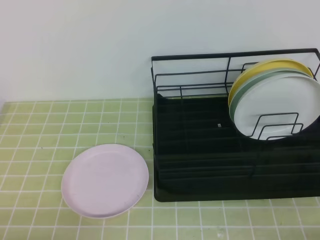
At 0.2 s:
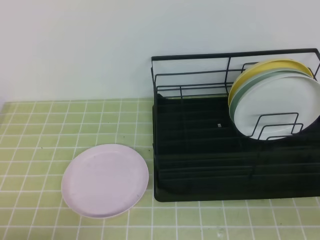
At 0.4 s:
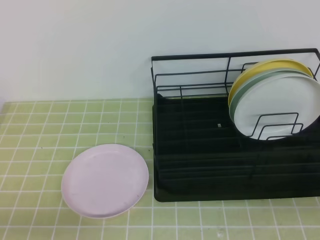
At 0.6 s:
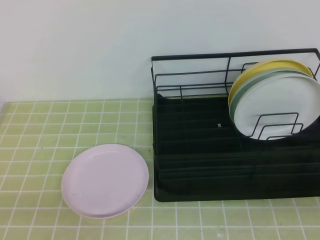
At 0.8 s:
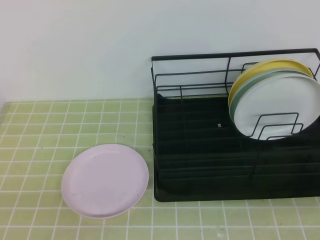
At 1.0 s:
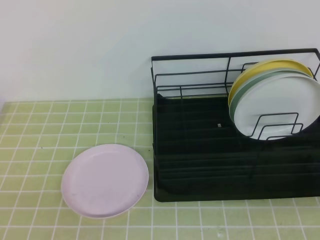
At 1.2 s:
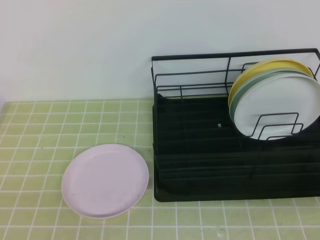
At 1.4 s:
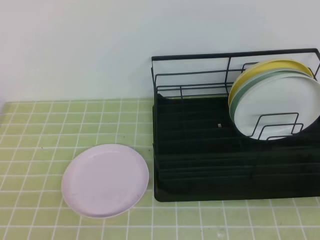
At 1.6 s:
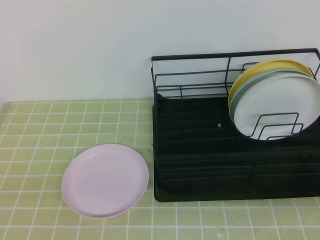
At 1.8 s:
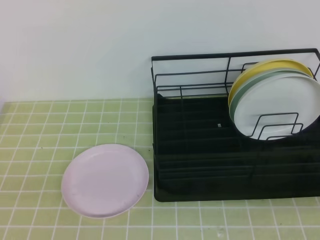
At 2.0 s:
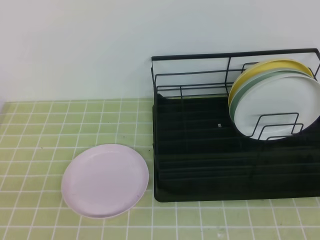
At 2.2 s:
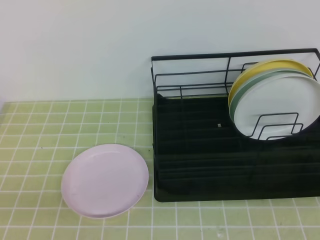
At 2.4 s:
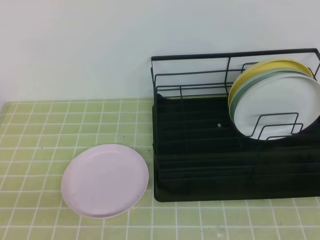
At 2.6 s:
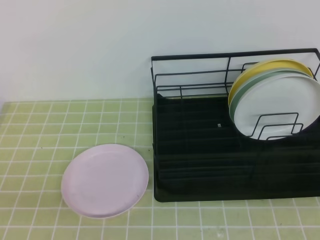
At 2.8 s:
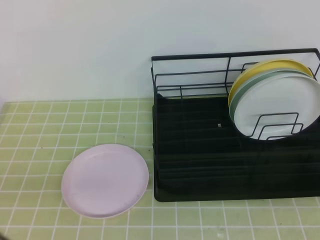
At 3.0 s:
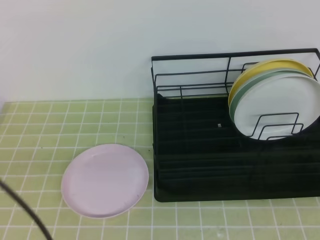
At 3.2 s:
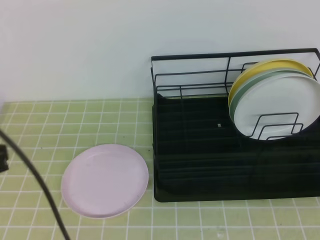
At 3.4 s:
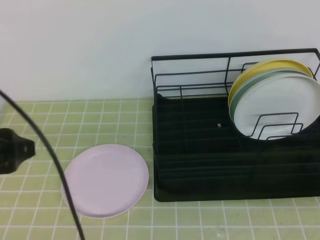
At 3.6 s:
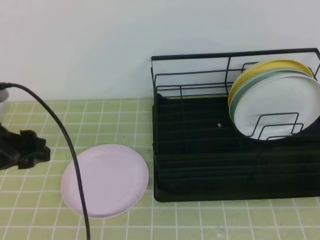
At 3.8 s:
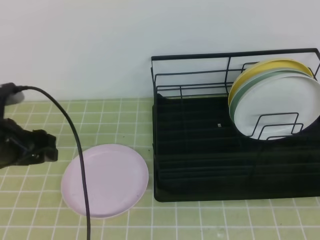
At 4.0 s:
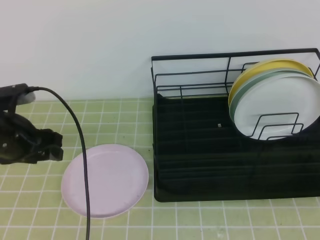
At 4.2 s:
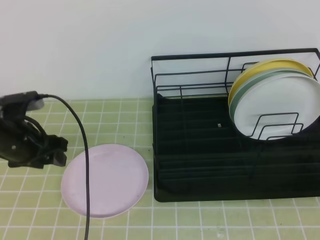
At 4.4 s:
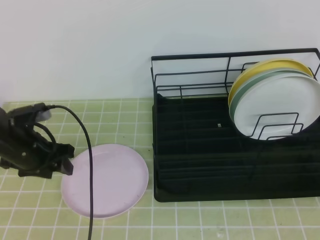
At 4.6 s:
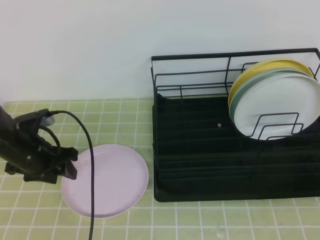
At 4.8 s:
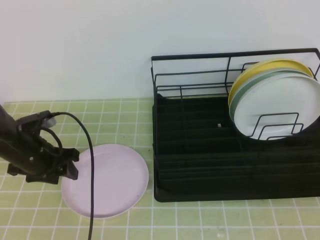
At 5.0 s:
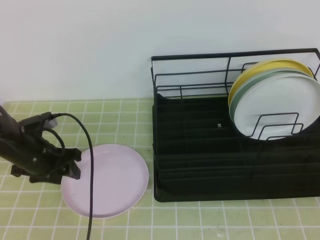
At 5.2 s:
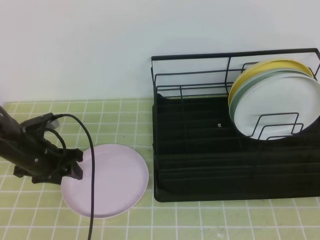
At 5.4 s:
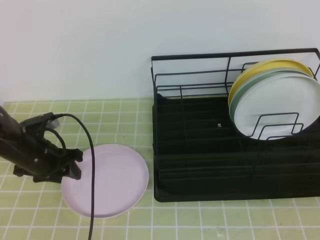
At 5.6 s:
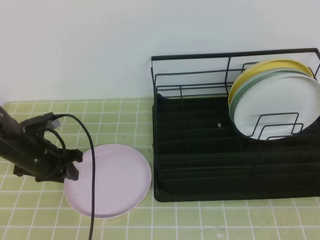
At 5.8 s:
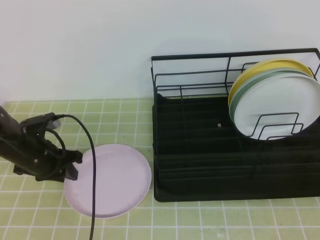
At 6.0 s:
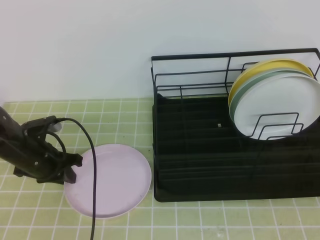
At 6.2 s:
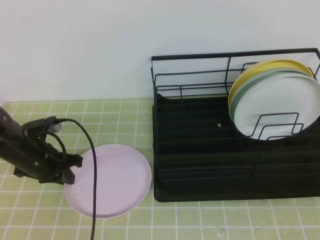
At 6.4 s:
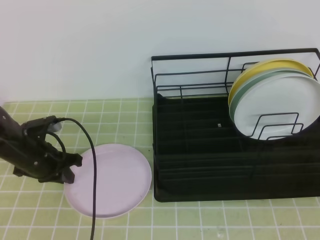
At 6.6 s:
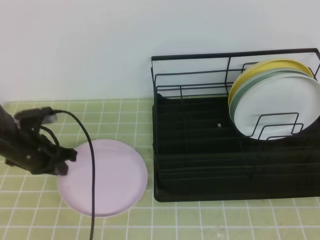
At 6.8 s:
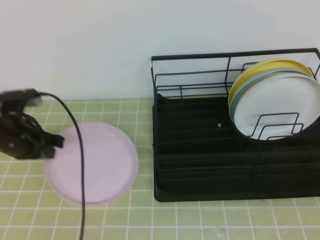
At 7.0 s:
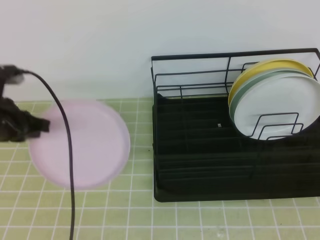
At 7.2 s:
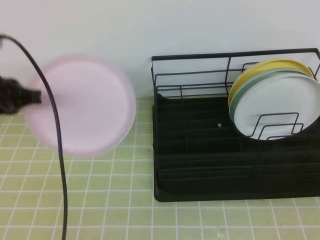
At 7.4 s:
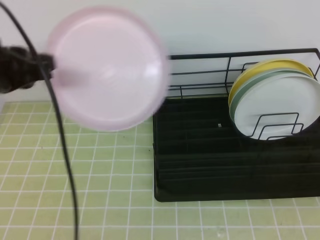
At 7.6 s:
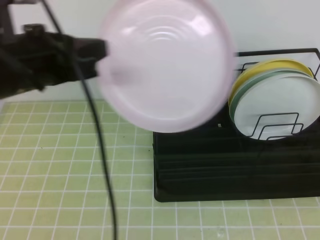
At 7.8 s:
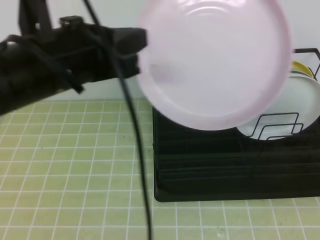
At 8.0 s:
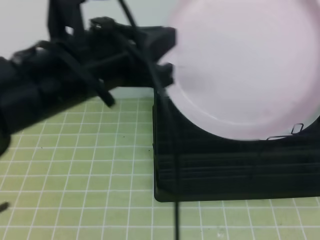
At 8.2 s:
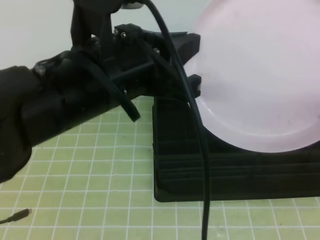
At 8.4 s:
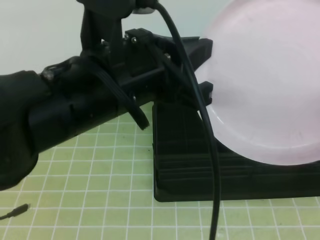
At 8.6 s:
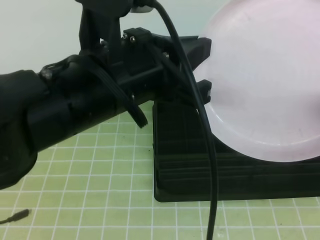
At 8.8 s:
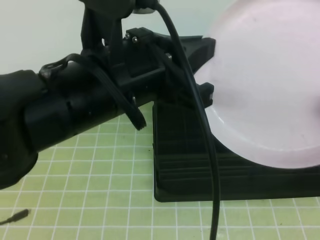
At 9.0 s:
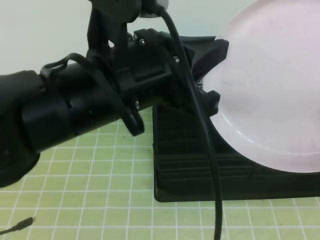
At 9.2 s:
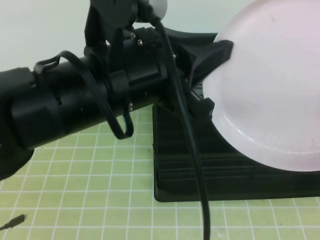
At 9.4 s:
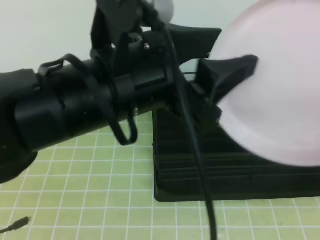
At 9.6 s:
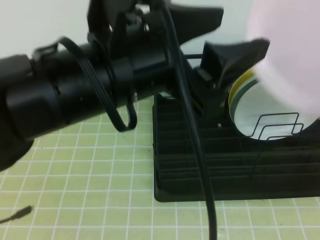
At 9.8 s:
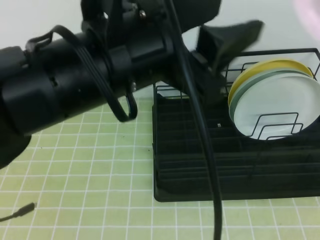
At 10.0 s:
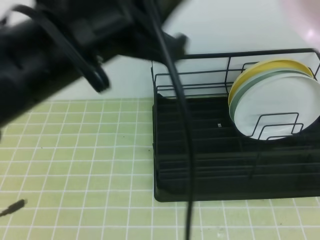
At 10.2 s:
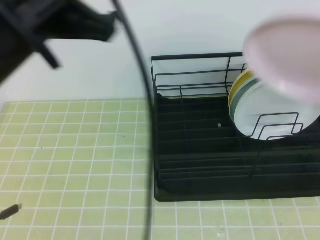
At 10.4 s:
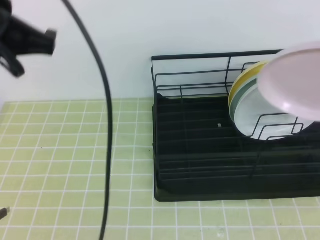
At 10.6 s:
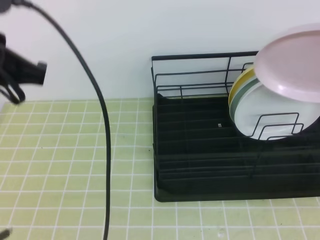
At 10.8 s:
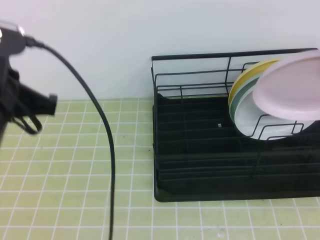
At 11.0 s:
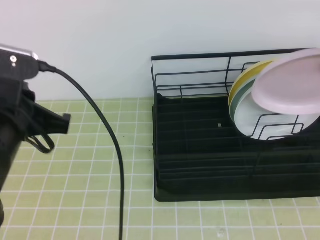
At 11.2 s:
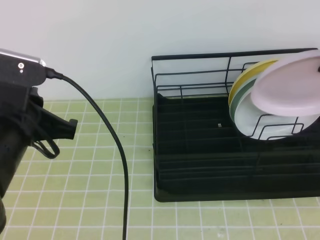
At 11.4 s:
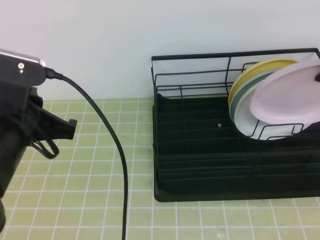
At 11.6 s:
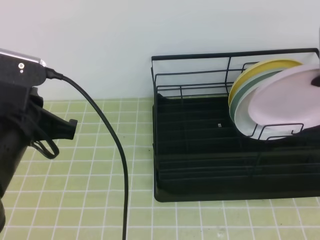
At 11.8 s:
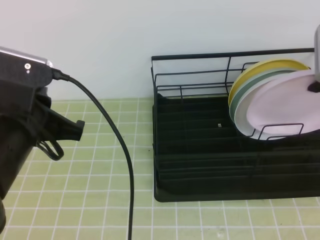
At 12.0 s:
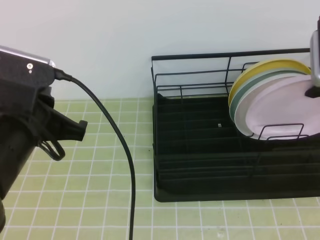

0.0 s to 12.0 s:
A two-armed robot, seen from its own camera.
1.6 to 3.0 s: The left gripper heads forward, covering some 10 cm.
3.0 to 4.4 s: The left gripper shifts about 25 cm forward and downward, and opens its fingers.
4.4 to 6.0 s: The left gripper heads downward, covering some 5 cm, and closes its fingers.
6.0 to 7.6 s: The left gripper travels upward and backward by some 25 cm, while the right gripper is displaced upward by some 5 cm.
7.6 to 9.0 s: The left gripper travels to the right and backward by roughly 15 cm; the right gripper opens its fingers.
9.0 to 10.4 s: The right gripper shifts some 15 cm forward and upward; the left gripper moves to the left, roughly 10 cm, and opens and closes again.
10.4 to 12.0 s: The left gripper travels downward by approximately 10 cm. The right gripper travels forward and downward by approximately 15 cm.

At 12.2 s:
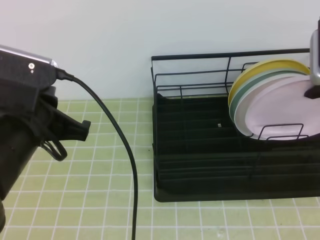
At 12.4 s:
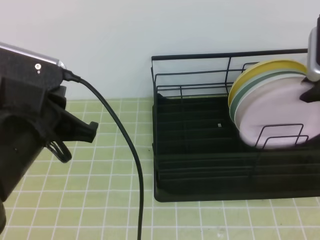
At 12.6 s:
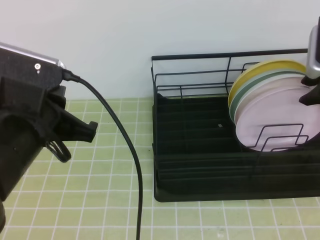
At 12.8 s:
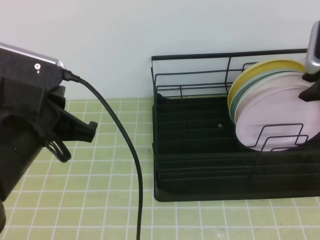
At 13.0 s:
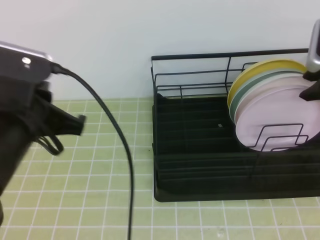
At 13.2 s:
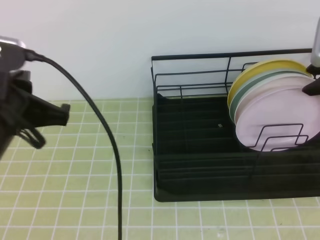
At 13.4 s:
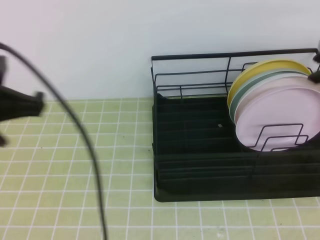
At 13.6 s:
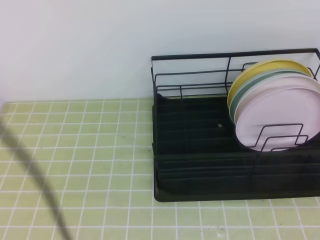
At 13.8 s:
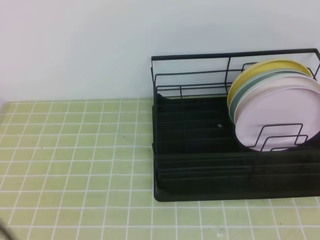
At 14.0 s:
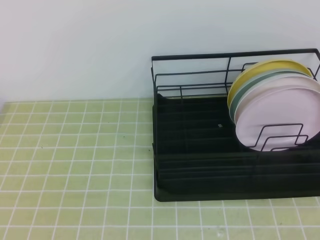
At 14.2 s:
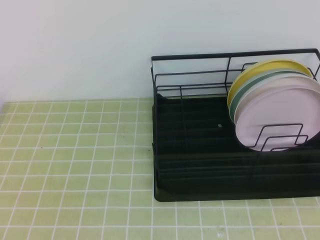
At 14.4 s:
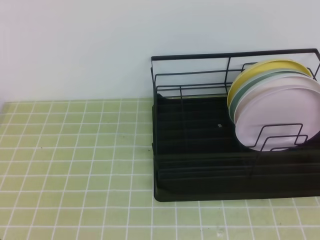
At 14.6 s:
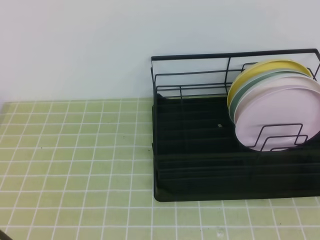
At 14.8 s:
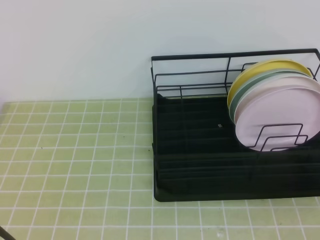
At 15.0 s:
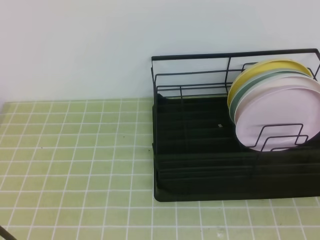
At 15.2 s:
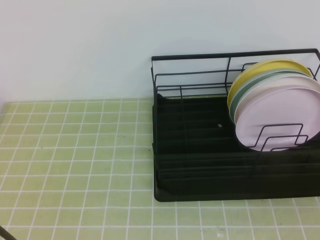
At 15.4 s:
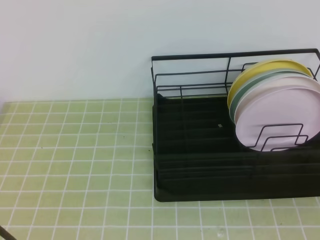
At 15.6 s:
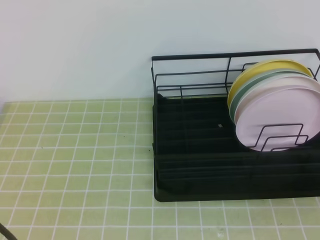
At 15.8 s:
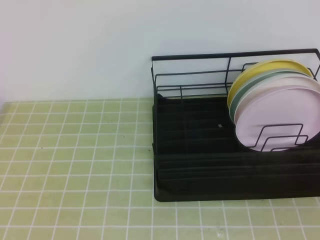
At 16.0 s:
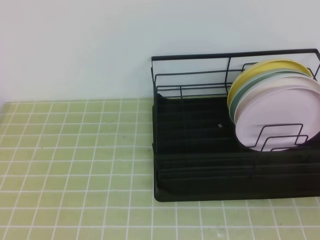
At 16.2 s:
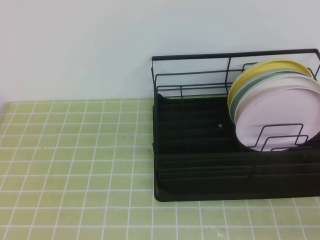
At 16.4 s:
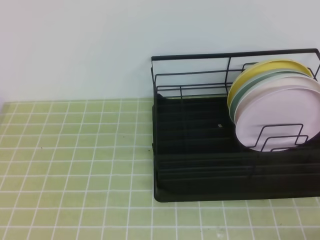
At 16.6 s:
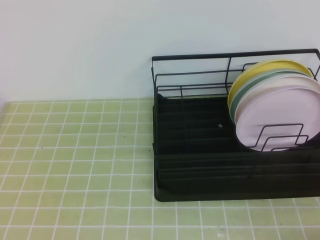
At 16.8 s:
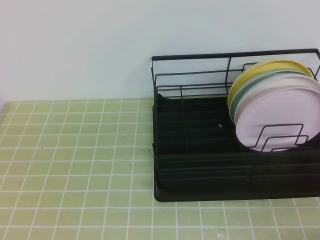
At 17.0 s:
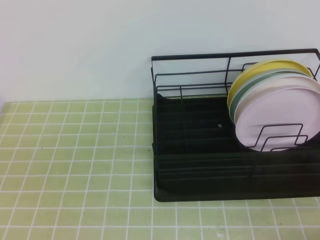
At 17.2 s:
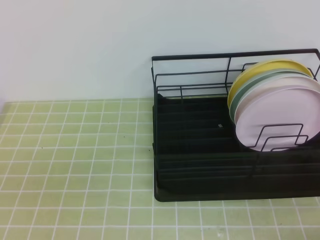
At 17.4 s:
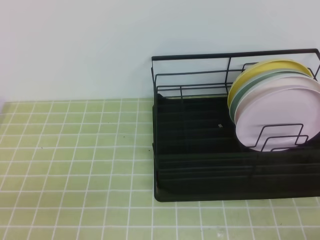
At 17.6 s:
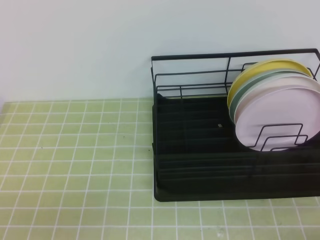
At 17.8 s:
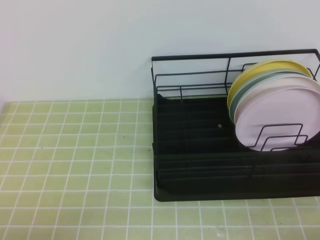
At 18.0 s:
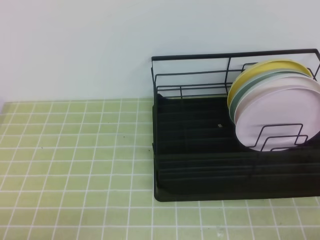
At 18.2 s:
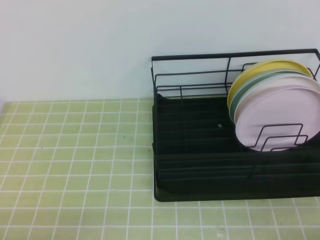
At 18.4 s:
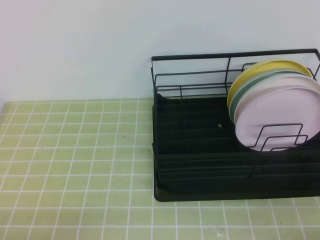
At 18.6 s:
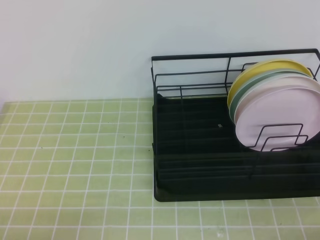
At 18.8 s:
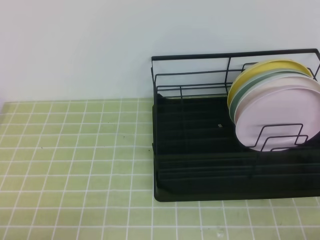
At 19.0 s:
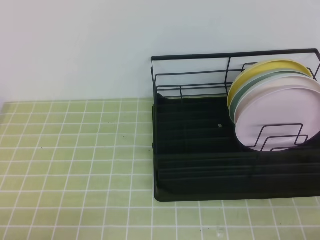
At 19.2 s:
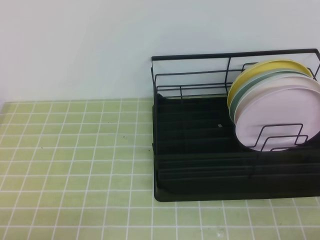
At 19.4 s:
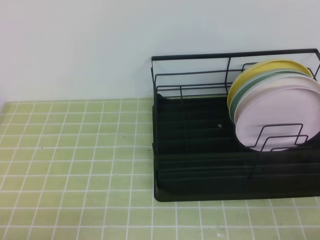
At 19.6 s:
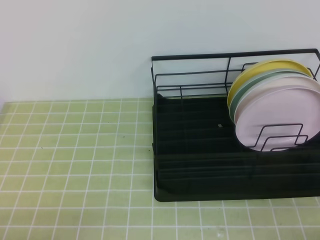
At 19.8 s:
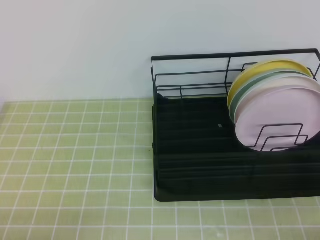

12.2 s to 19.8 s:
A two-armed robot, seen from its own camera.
12.2 to 13.8 s: The right gripper moves upward and backward, about 15 cm, and opens and closes again. The left gripper heads backward, upward and to the left, covering about 15 cm.
18.2 to 19.8 s: Neither gripper changes place.
